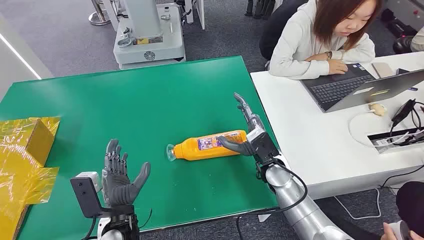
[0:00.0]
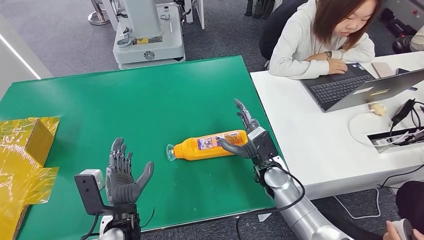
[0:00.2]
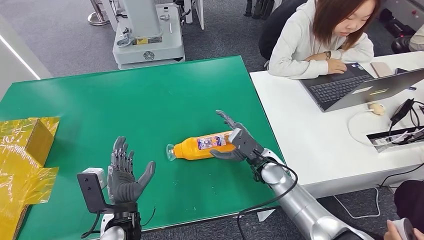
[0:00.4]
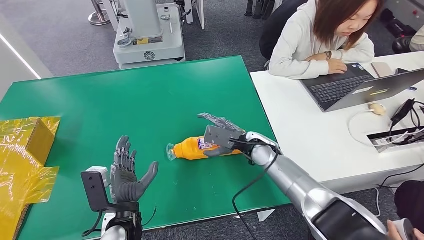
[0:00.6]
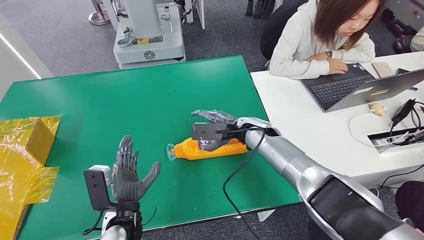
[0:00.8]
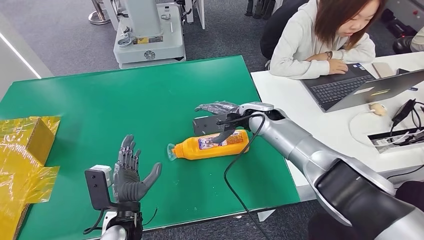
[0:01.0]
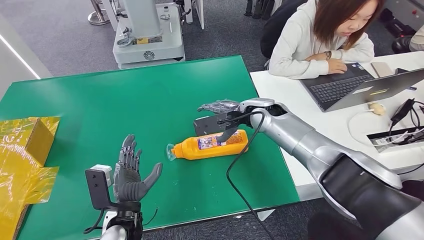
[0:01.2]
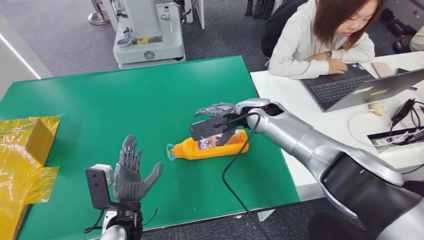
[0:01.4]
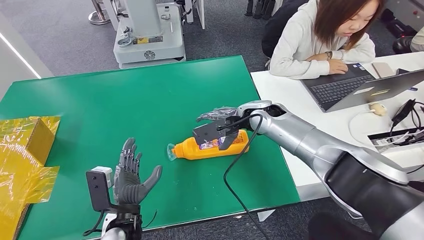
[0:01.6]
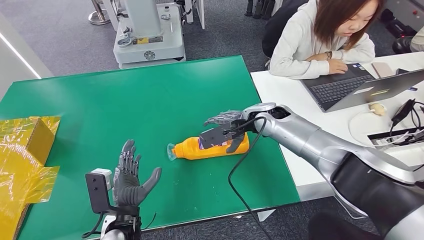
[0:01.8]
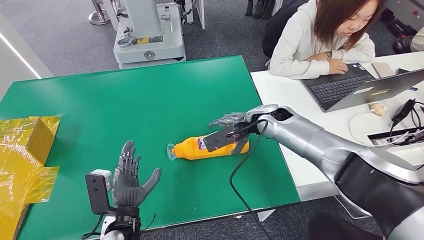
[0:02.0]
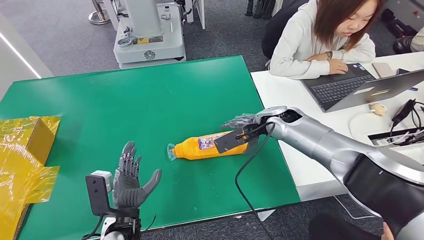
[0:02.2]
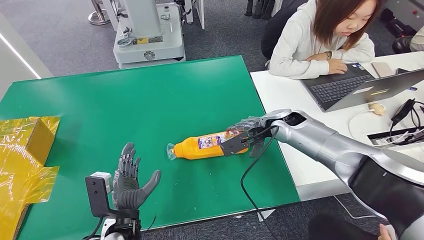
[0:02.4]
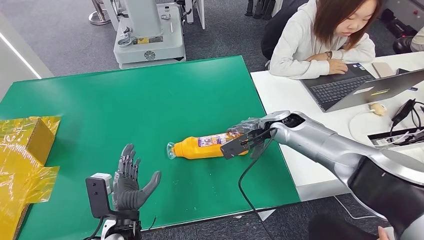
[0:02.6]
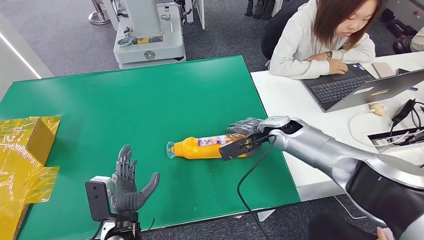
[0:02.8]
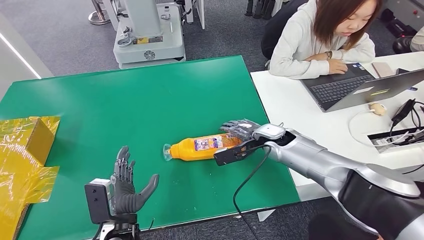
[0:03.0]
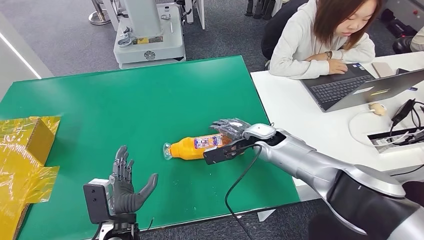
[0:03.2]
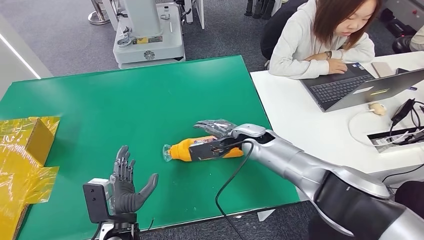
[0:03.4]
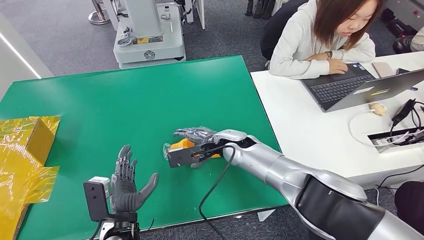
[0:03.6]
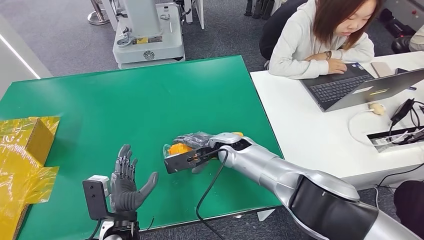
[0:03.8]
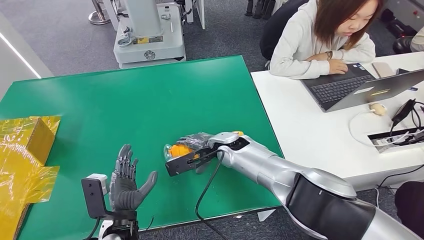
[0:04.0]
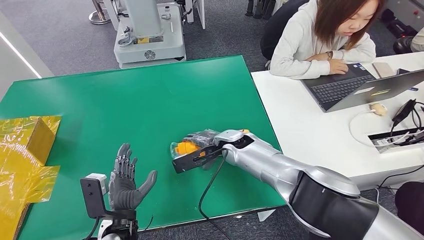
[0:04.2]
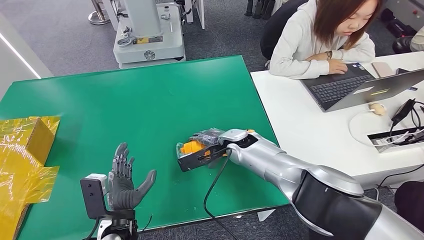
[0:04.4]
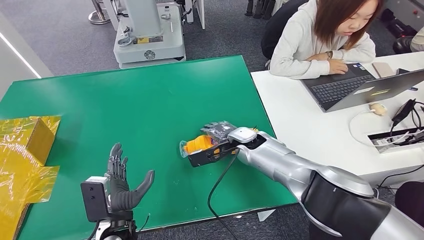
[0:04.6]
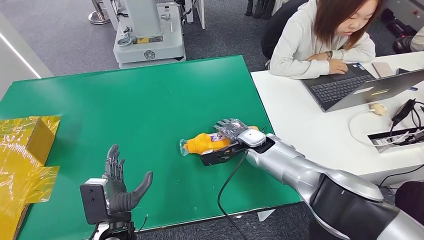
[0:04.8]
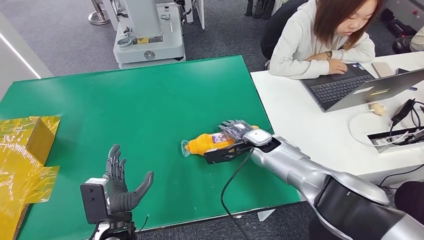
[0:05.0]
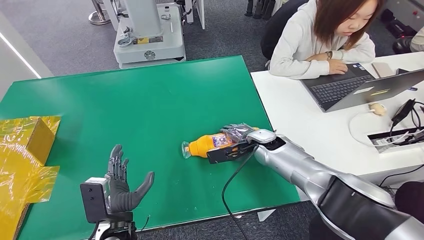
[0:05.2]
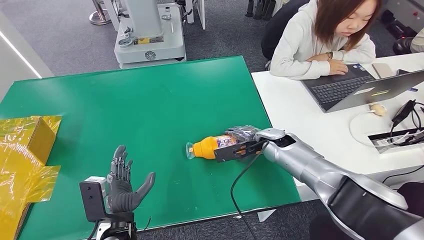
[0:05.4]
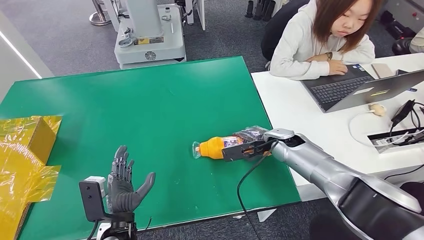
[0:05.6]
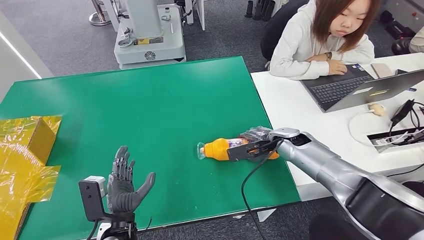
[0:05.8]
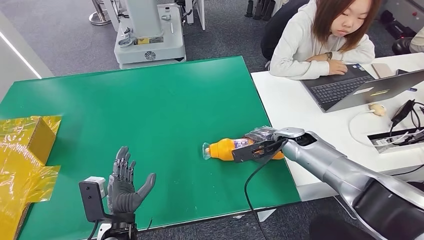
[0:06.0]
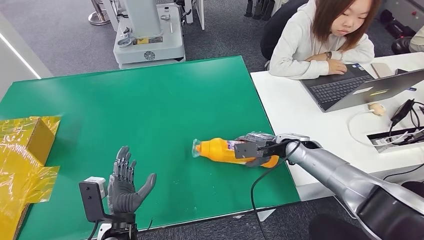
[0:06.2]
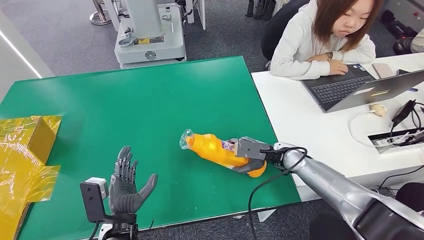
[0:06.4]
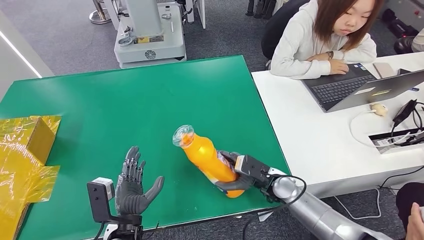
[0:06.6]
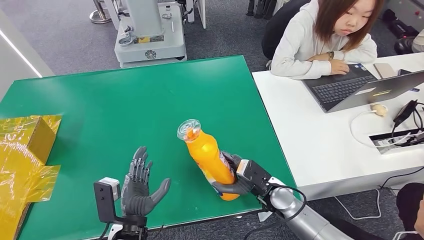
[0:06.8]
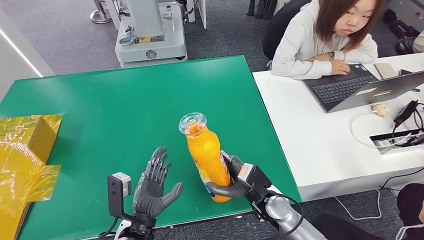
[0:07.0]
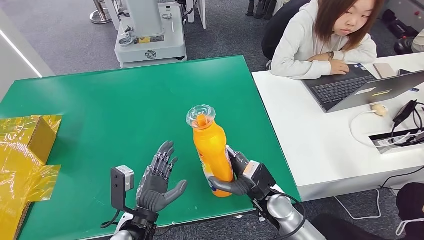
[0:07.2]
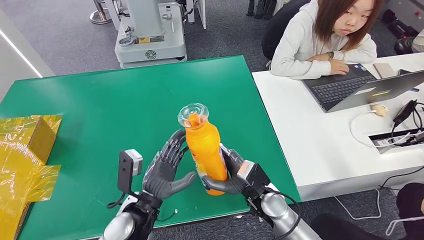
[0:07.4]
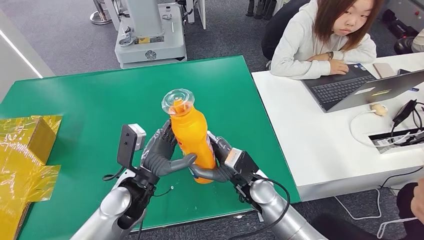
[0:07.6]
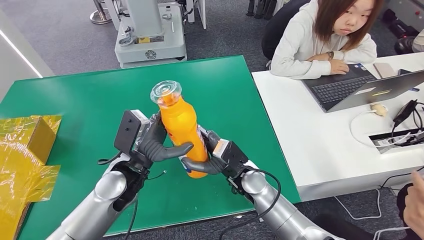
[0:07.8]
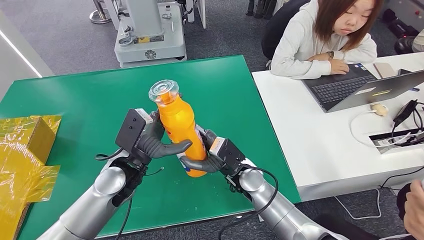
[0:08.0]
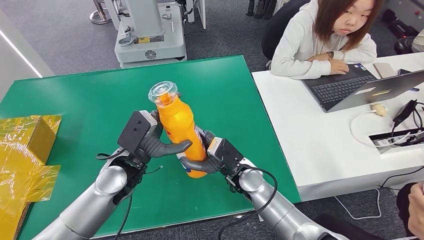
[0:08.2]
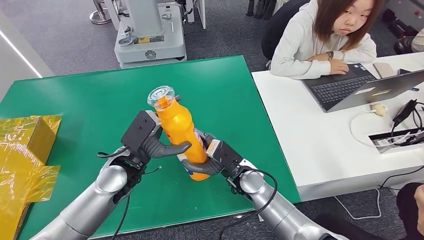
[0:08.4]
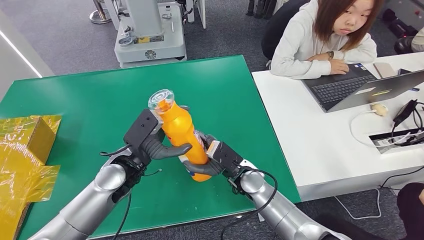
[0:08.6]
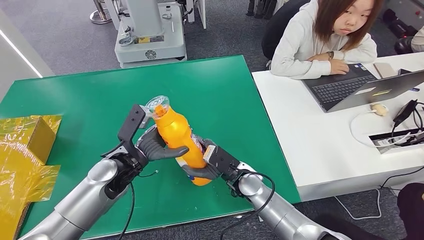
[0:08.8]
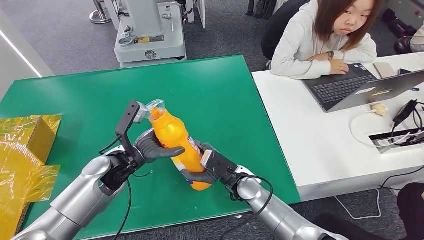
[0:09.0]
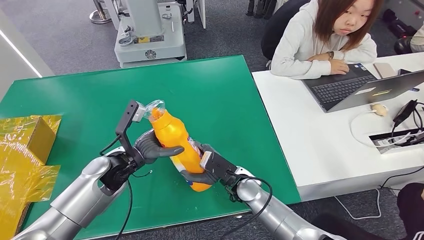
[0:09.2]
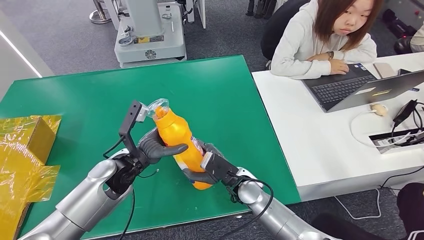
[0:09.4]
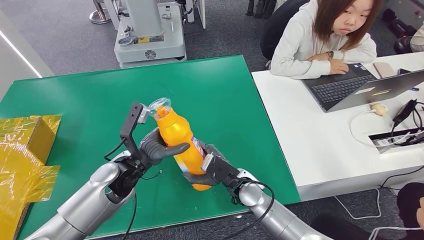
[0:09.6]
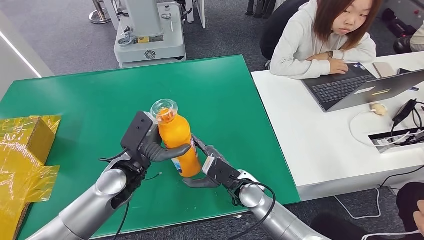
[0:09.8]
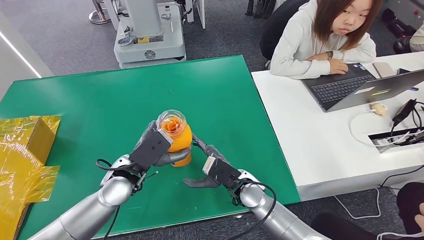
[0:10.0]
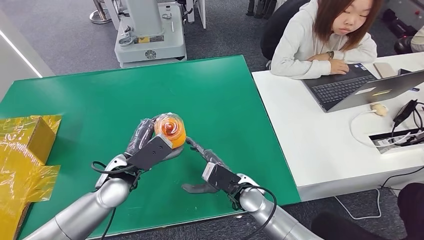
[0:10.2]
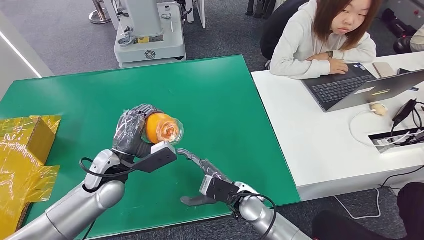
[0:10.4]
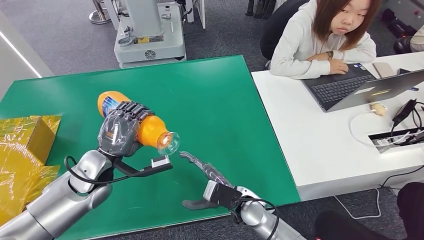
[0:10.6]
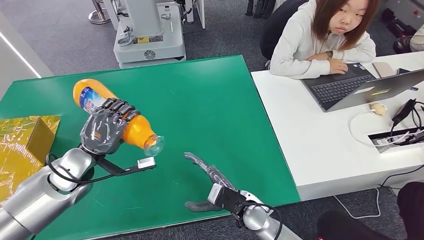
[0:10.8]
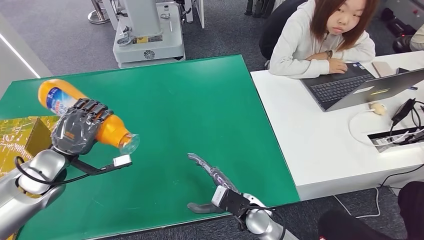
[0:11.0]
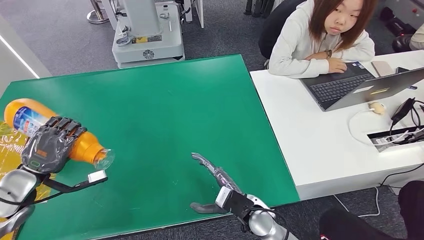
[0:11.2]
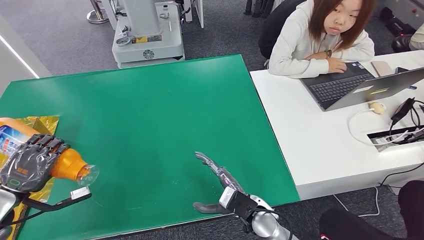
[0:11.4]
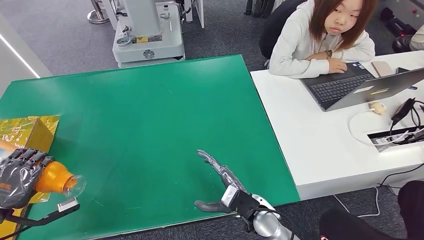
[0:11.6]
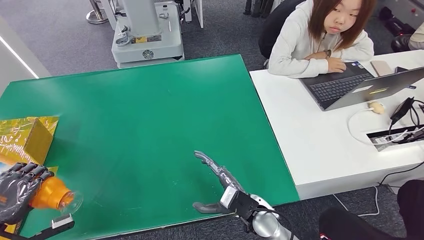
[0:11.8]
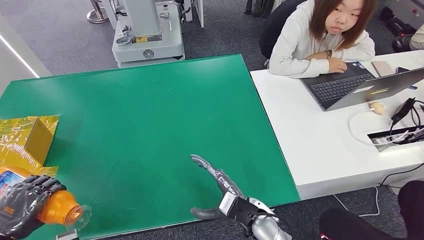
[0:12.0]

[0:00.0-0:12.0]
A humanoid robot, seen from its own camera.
Step, 0:00.0 to 0:07.8: Pick up the bottle from the table.
0:01.6 to 0:03.0: The right hand shifts roughly 10 cm downward and to the right.
0:03.0 to 0:04.4: The right hand is displaced to the left by some 10 cm.
0:04.4 to 0:06.0: The right hand goes roughly 15 cm to the right.
0:07.6 to 0:09.0: The left hand travels forward by roughly 5 cm.

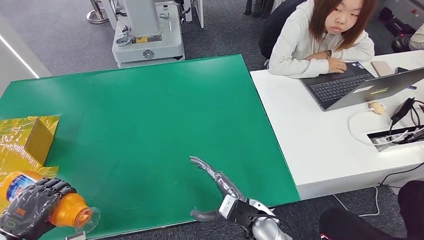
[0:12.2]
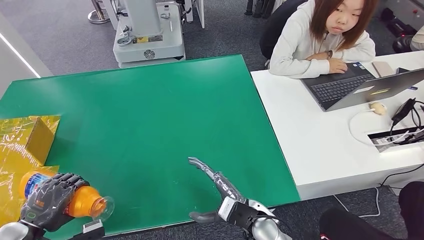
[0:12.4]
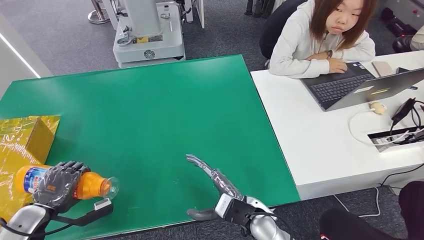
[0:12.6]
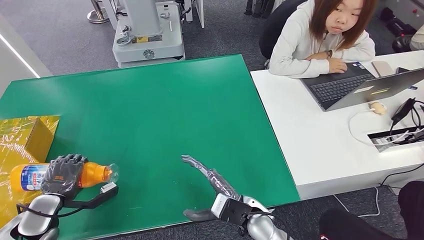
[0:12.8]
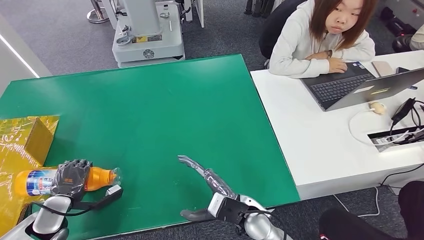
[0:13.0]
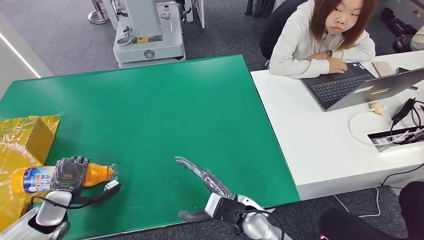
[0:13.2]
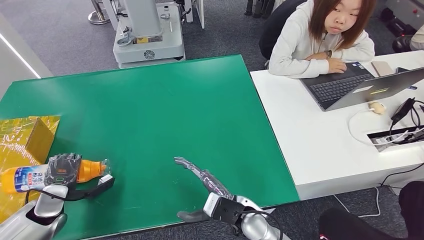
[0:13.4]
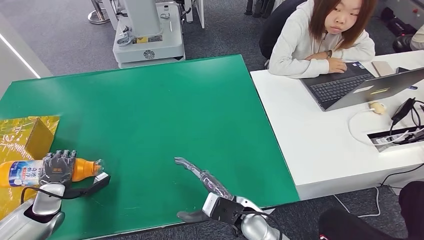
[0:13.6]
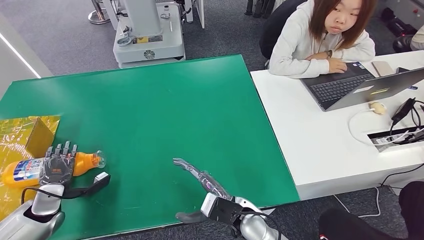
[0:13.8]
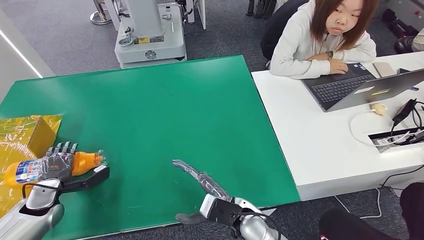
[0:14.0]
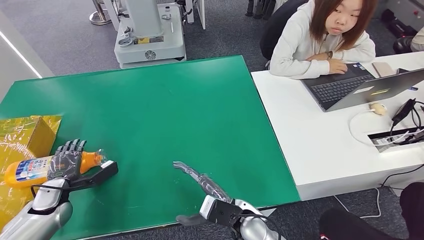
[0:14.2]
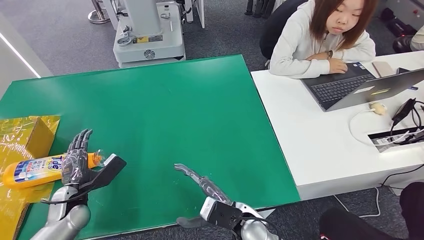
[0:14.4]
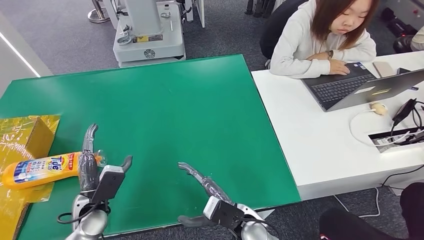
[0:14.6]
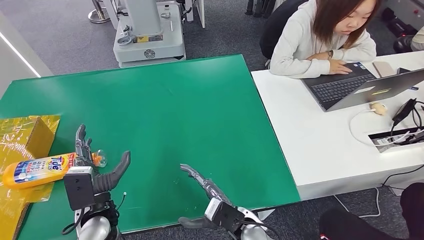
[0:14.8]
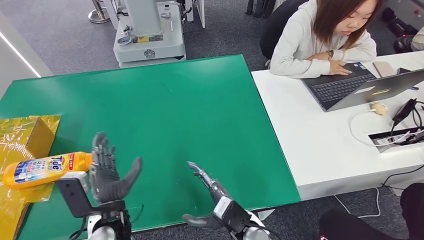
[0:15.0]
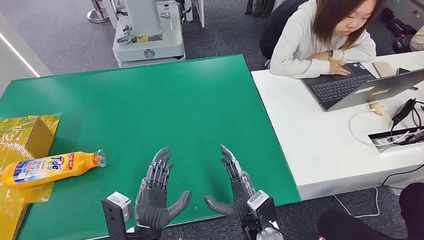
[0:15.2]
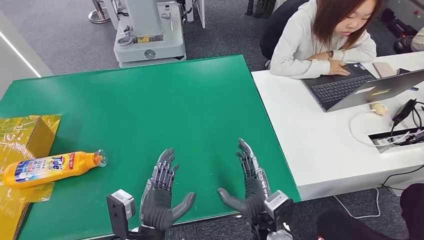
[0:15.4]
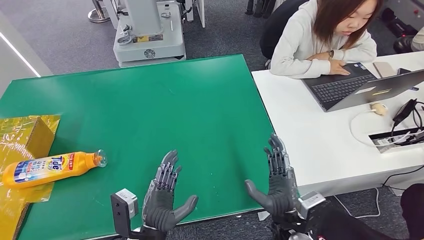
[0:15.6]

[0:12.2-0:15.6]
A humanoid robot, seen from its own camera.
Step, 0:12.2 to 0:15.6: Turn the bottle to the front side.
0:12.2 to 0:13.8: The left hand travels downward, forward and to the right by approximately 20 cm.
0:13.8 to 0:15.6: The left hand travels to the right by roughly 25 cm; the right hand is displaced to the right and backward by some 10 cm.

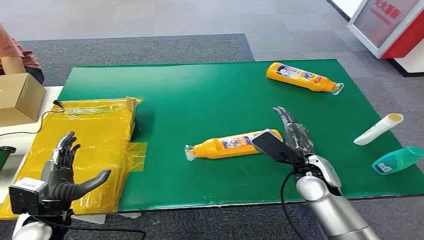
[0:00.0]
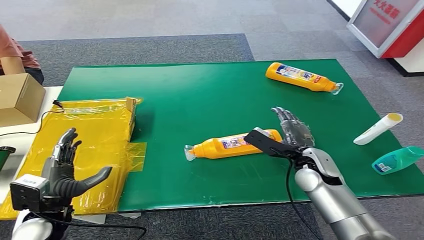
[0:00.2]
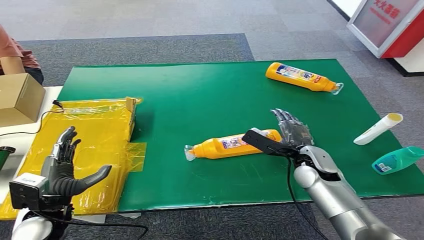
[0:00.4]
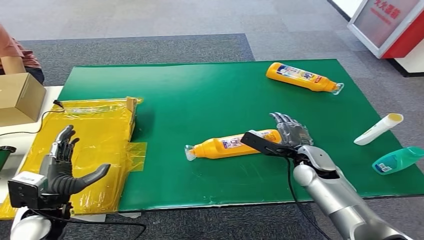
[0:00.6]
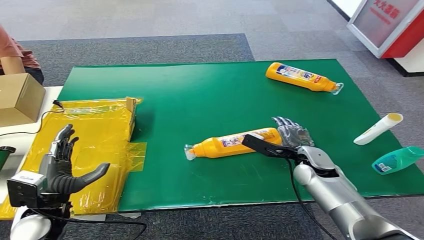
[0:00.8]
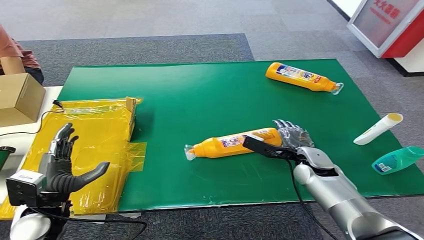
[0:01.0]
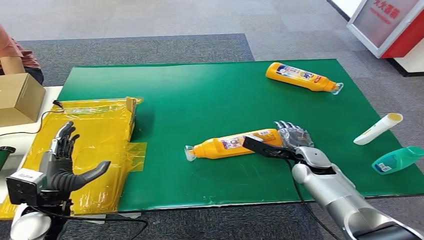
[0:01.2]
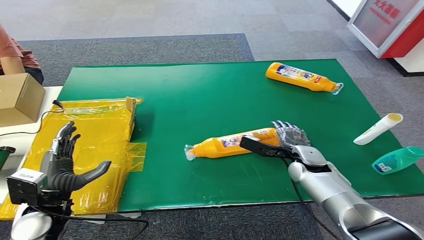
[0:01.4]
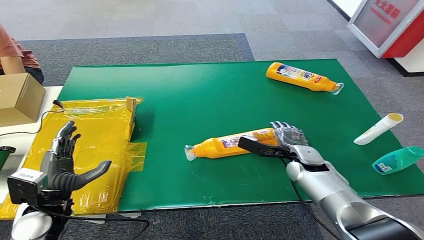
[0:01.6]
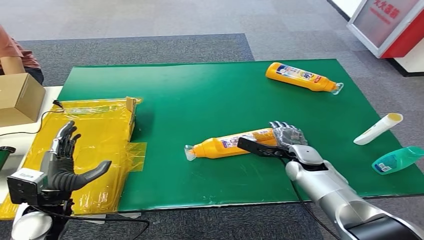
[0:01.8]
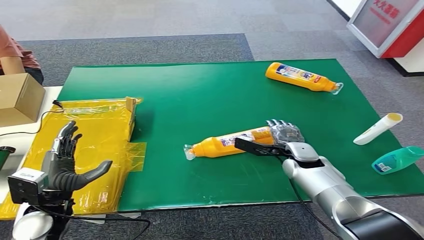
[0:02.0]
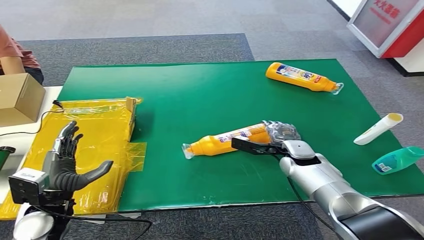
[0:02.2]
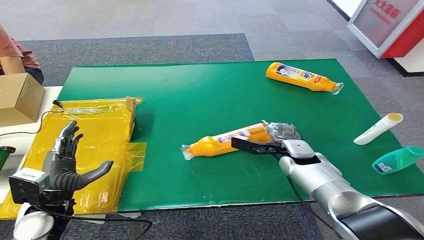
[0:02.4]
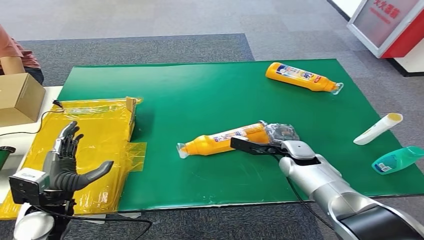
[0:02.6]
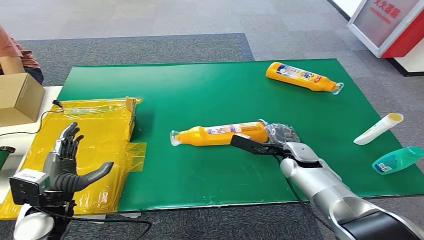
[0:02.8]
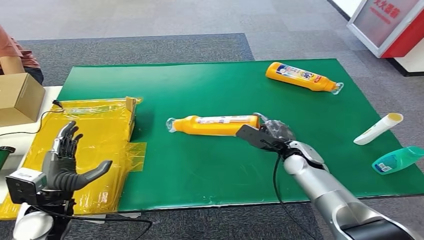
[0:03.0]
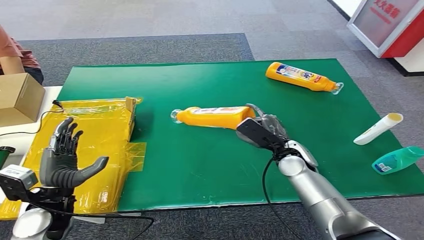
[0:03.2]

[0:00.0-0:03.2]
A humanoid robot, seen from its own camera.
0:01.6 to 0:03.2: The right hand changes place by some 5 cm.
